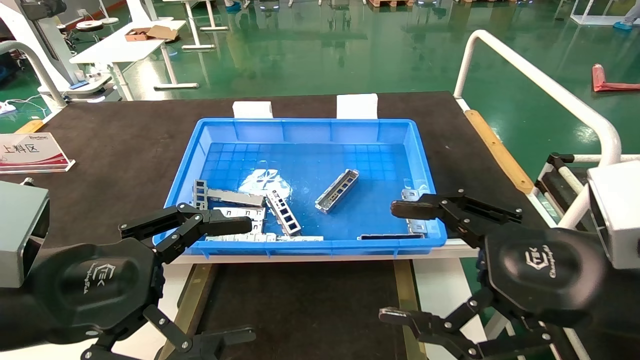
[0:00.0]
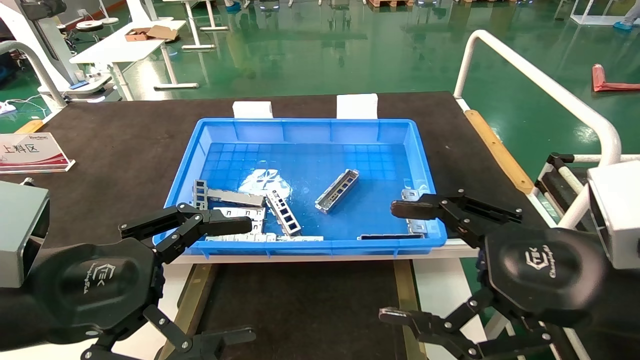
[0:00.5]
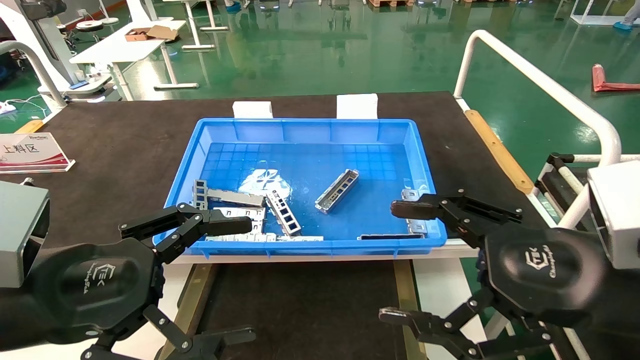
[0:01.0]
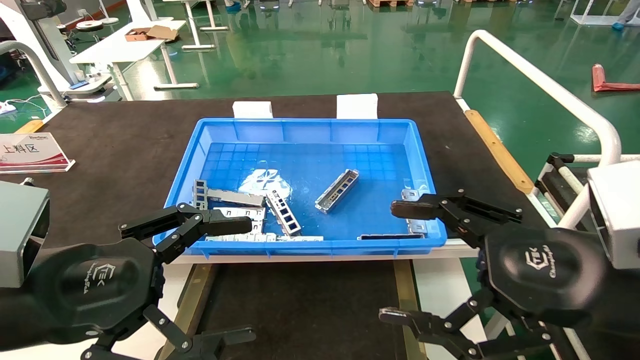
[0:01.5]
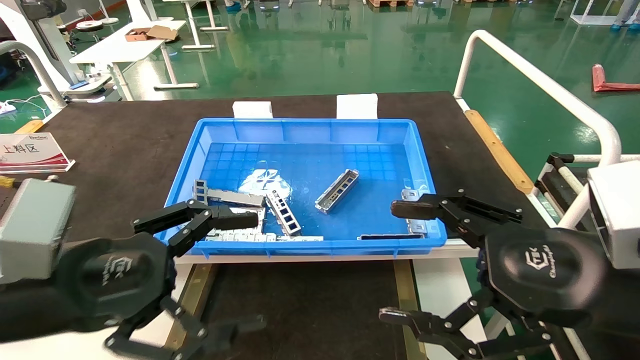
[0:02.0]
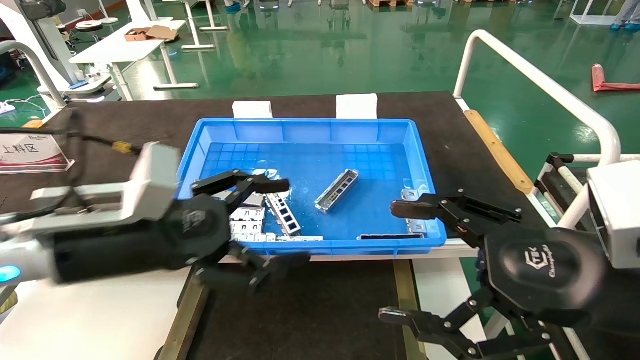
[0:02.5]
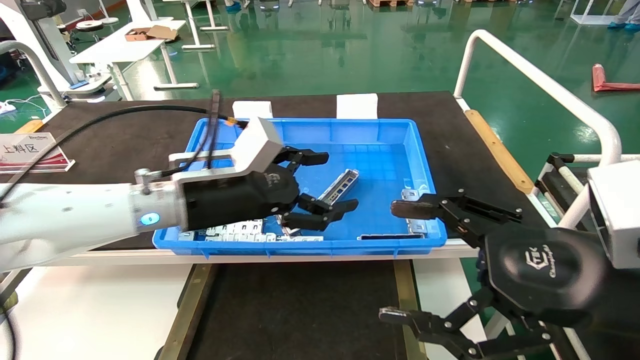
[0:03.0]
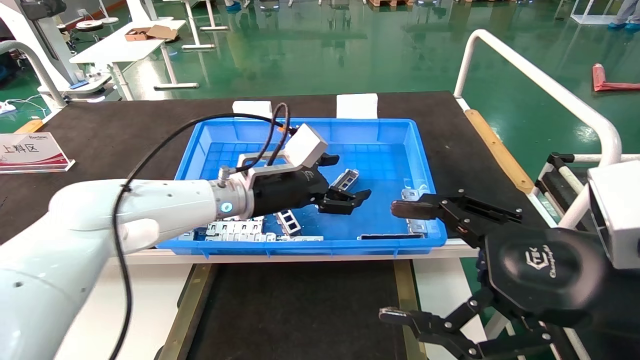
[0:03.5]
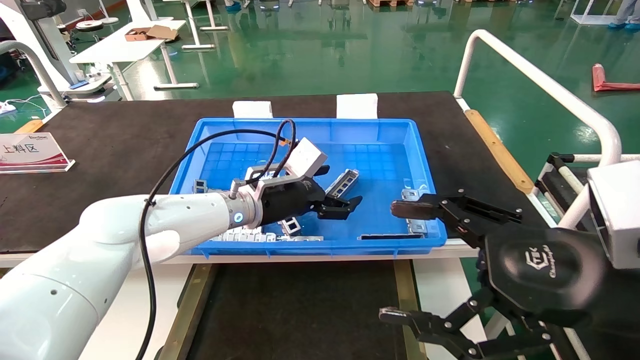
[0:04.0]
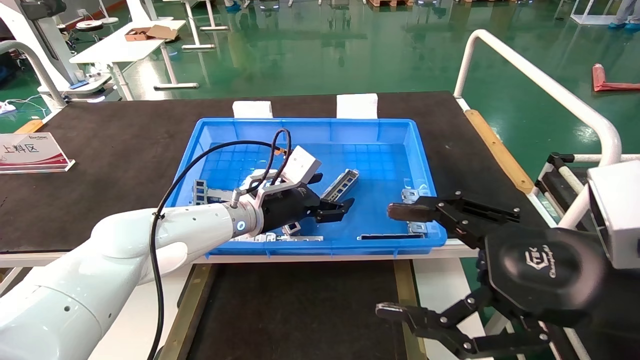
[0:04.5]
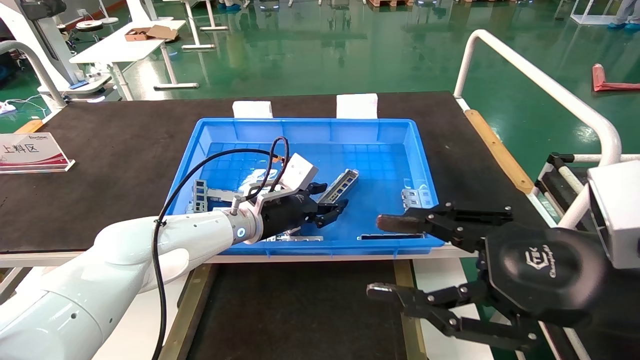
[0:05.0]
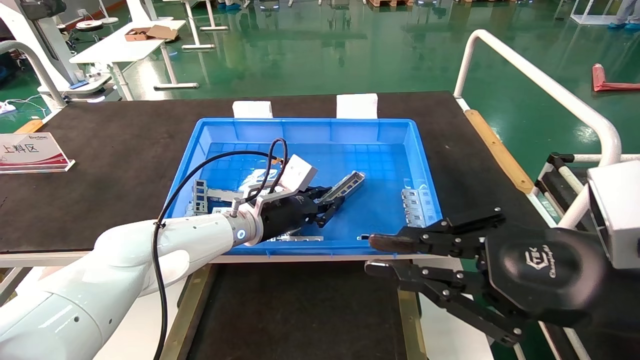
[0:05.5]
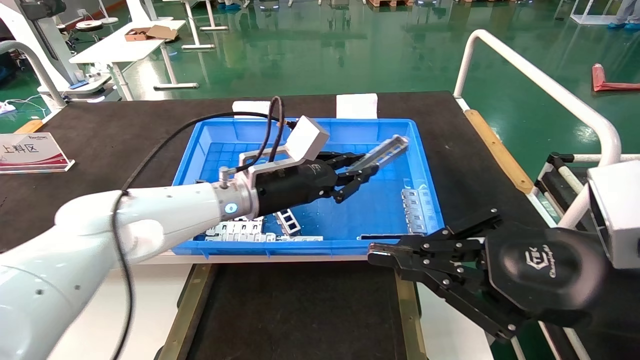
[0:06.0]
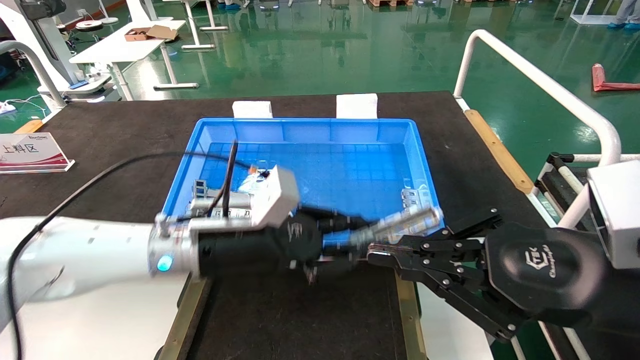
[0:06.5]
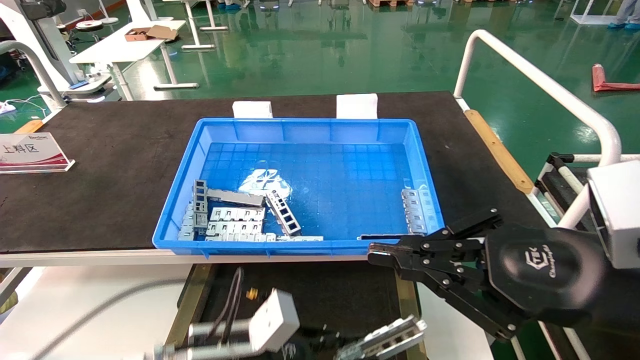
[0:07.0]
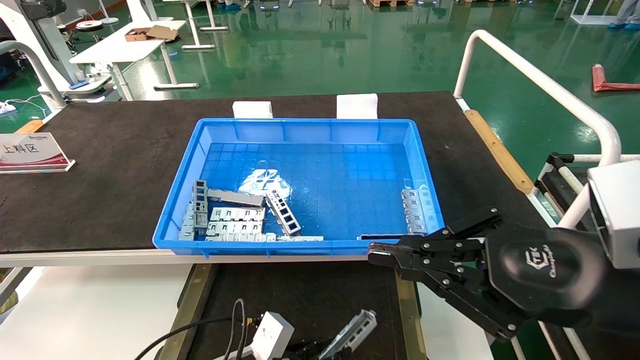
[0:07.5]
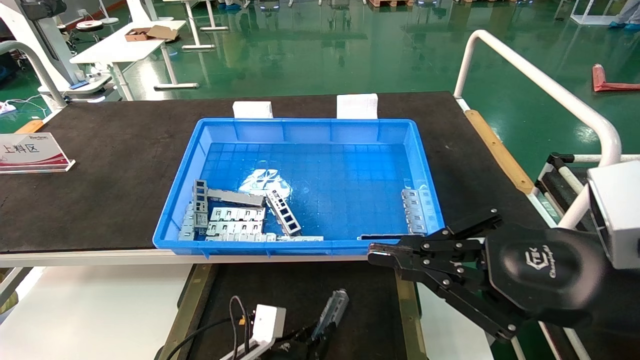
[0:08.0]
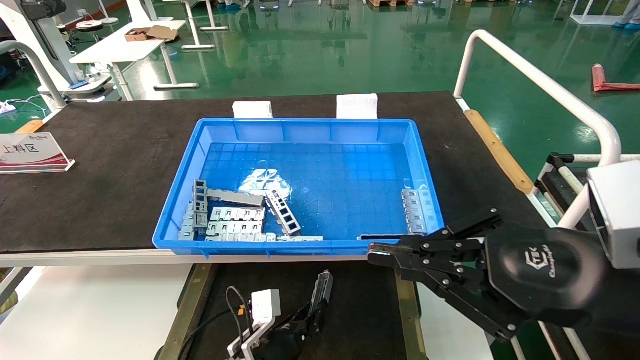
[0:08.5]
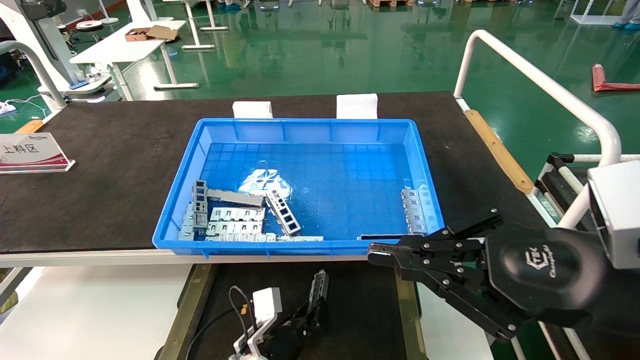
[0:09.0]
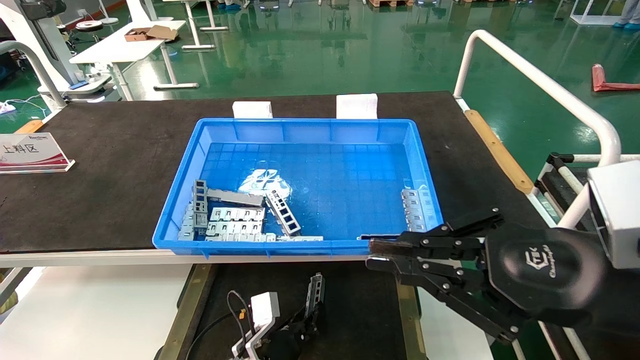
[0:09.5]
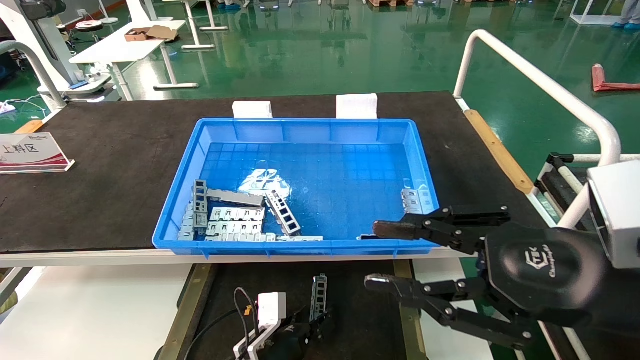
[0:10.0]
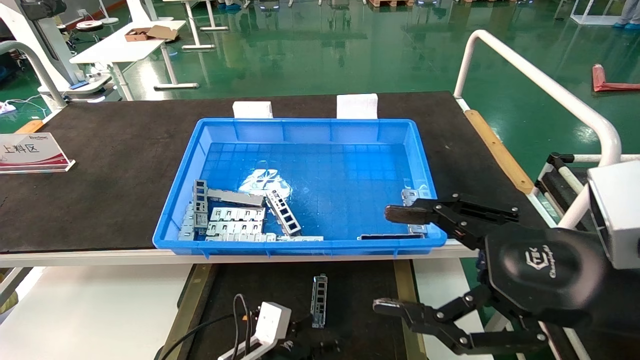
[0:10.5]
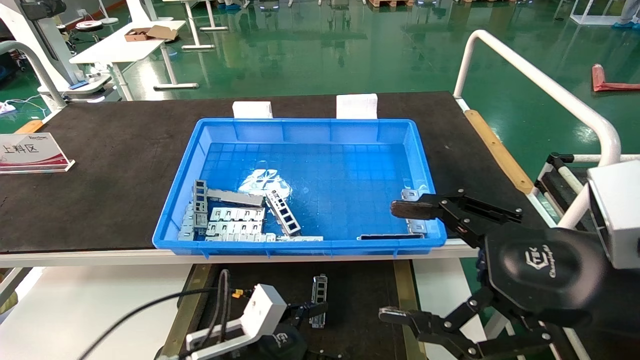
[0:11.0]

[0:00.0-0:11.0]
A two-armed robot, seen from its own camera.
Task of the whole recording: Grasp the part with one hand and place it on the black container.
Step, 0:02.5 to 0:05.5: Pick up the front USB bracket from the feeding area.
Step, 0:06.0 to 0:10.0: Place the front USB bracket into the box.
0:00.0 to 0:02.0: The grippers move only a little.
0:02.0 to 0:03.5: The left gripper shifts some 30 cm forward and to the right.
0:03.5 to 0:05.5: The left gripper goes roughly 5 cm downward, and closes; the right gripper closes.
0:05.5 to 0:07.5: The left gripper is displaced downward and backward by roughly 25 cm.
0:07.5 to 0:09.0: The left gripper travels forward and downward by some 10 cm.
0:09.0 to 0:11.0: The right gripper opens. The left gripper moves upward, backward and to the left, about 15 cm, and opens.
